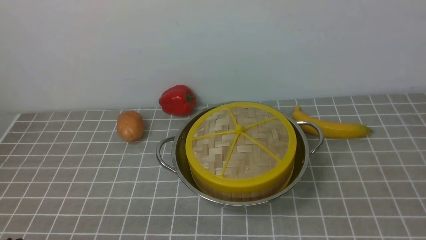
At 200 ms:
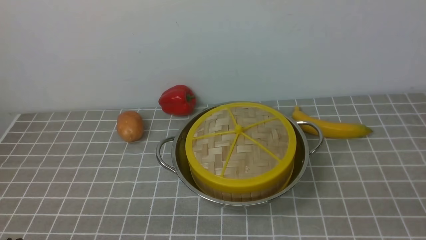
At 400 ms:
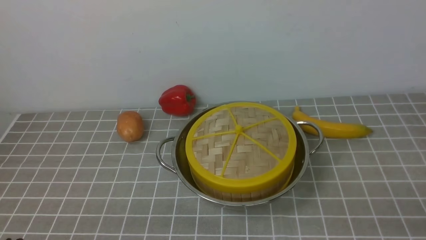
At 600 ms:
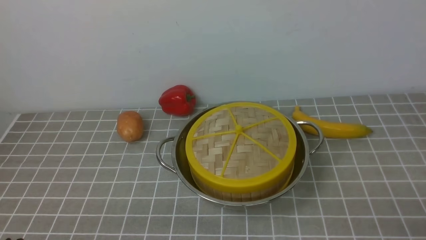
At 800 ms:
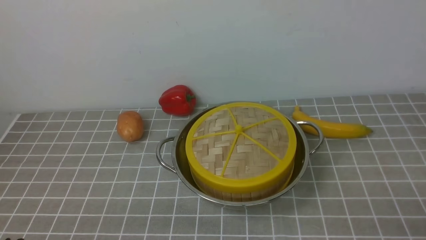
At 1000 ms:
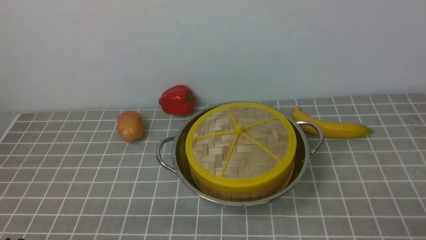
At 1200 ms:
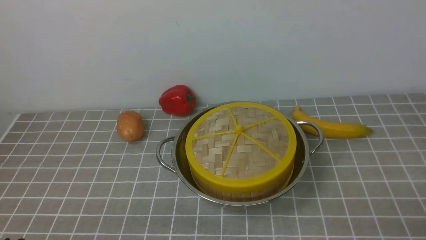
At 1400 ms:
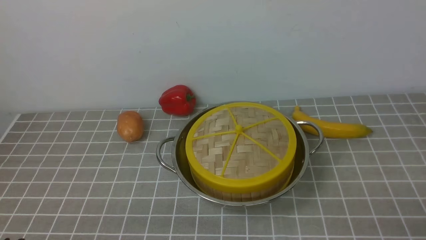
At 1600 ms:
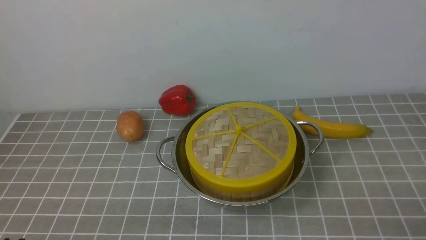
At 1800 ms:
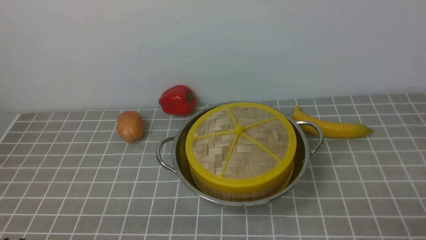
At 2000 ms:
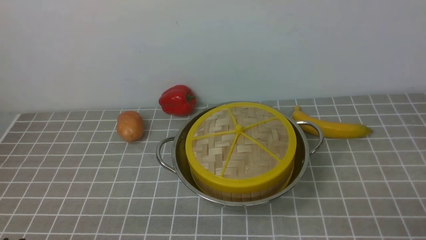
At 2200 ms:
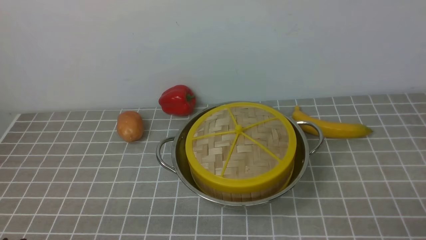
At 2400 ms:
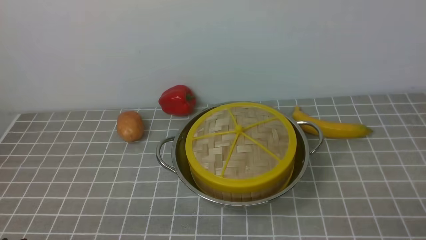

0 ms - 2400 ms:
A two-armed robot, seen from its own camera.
Task of the whole recording: place the steamer in the pot on the grey tablecloth, and put the lid on the steamer.
1200 ms - 2400 ms: Both grippers stay put.
